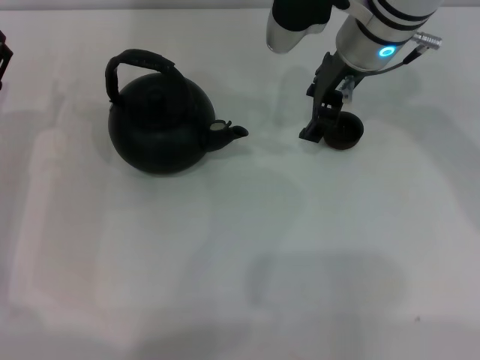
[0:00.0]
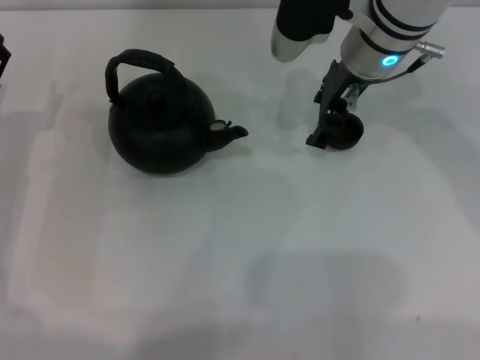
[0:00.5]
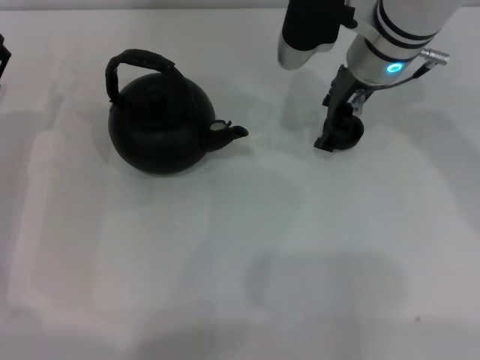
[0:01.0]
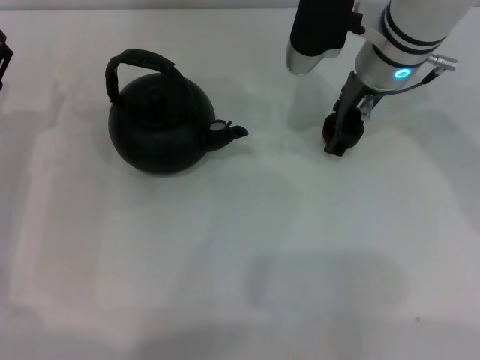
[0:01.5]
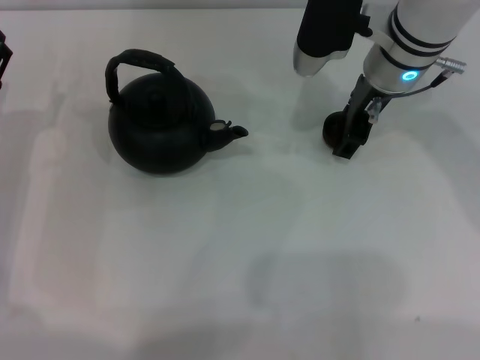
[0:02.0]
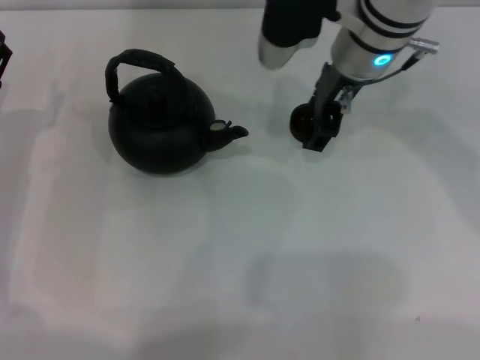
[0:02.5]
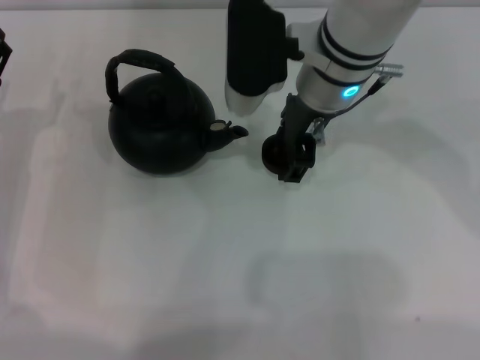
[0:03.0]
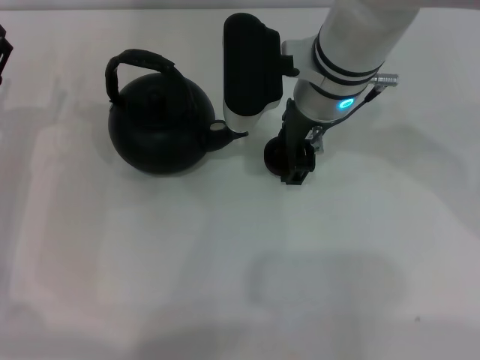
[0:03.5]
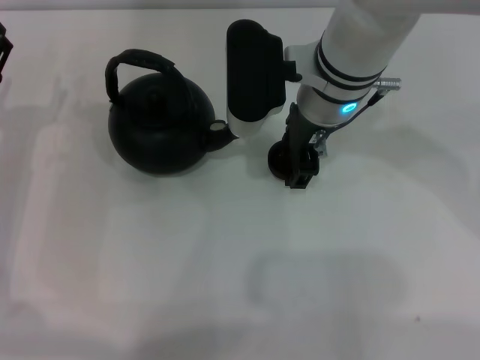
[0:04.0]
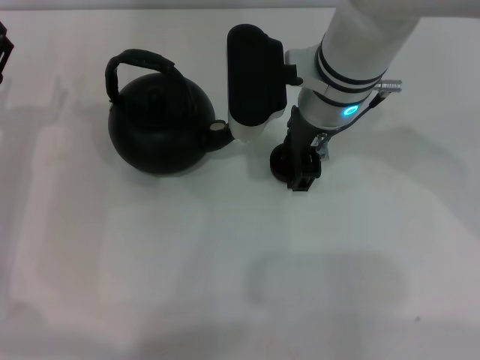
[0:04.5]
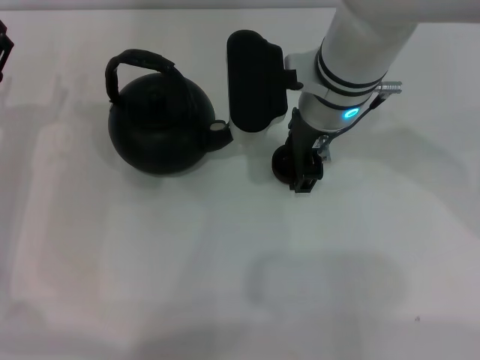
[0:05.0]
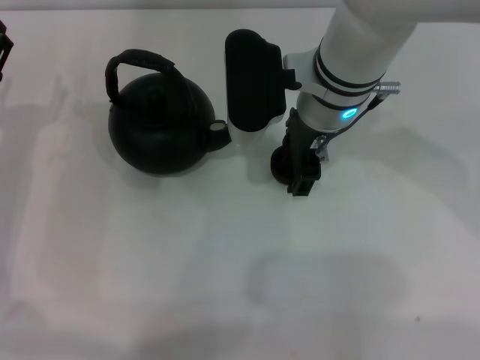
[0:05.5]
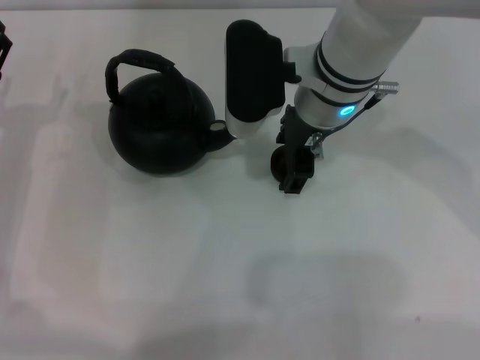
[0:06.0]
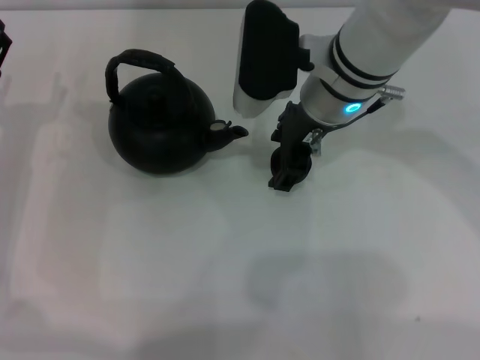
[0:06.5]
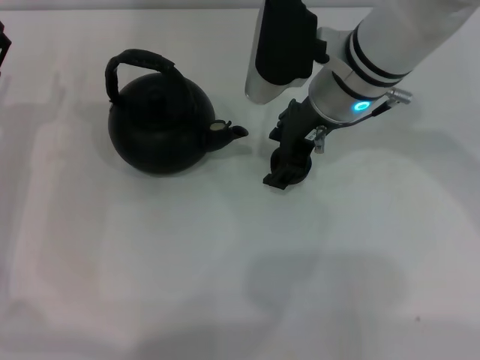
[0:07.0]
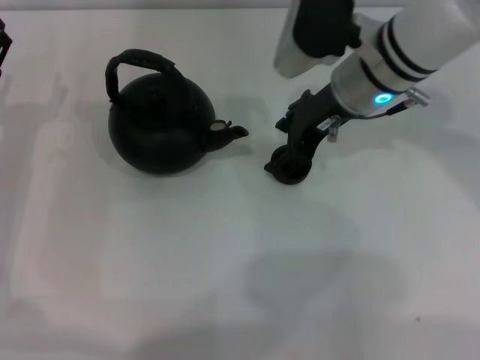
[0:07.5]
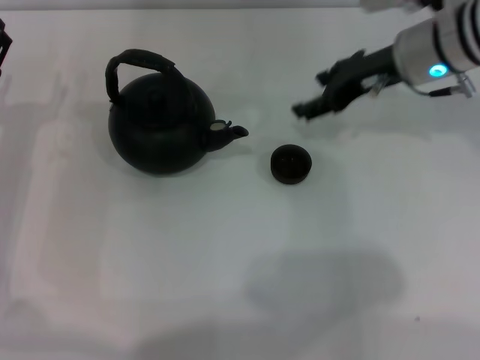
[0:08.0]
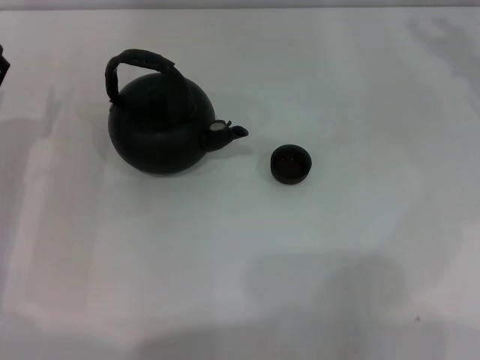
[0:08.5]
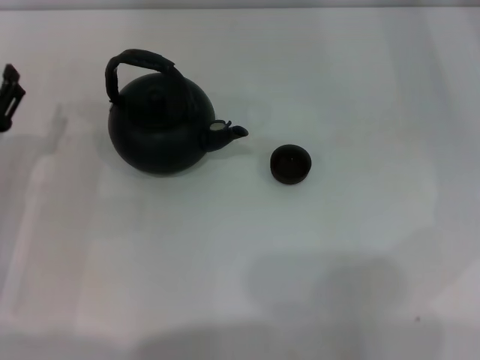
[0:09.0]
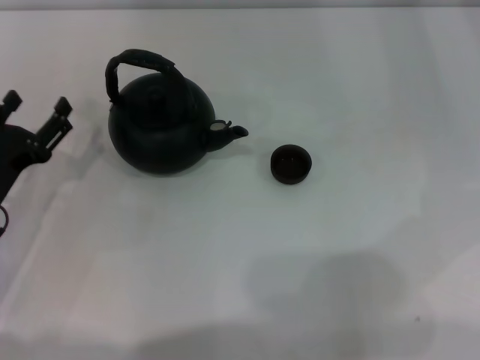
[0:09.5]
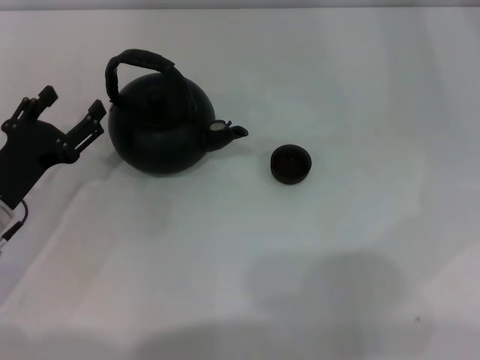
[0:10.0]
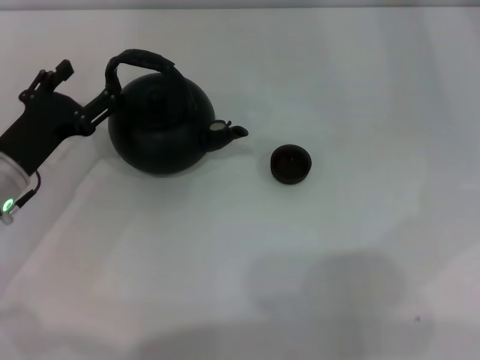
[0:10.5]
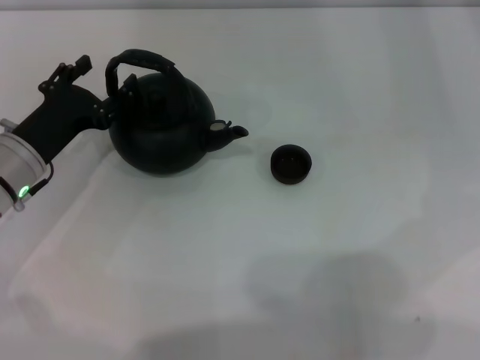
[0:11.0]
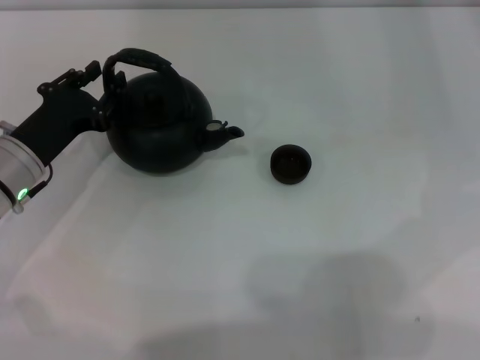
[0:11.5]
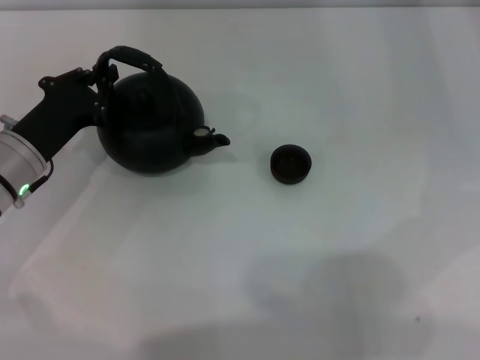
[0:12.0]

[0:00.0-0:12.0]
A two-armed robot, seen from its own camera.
Task of the whole recording: Grasp the handle of the teapot with one hand and pour tea into the teacup.
Step, 0:00.0 to 0:02.5: Pick up the teacup with the right gripper.
Step, 0:03.0 to 0:07.5: Place the teacup in the center of view with the right gripper.
0:00.0 to 0:02.0: There are only small adjustments of the grippers.
0:02.0 to 0:04.0: The right gripper shifts some 5 cm to the left.
0:04.0 to 0:06.0: The two grippers keep their place.
0:06.0 to 0:08.0: The right gripper is displaced to the right by some 15 cm.
0:08.0 to 0:10.0: The left gripper ends up approximately 5 cm from where it was; the right gripper shifts about 15 cm to the right.
0:10.0 to 0:12.0: The left gripper goes about 5 cm forward, and closes.

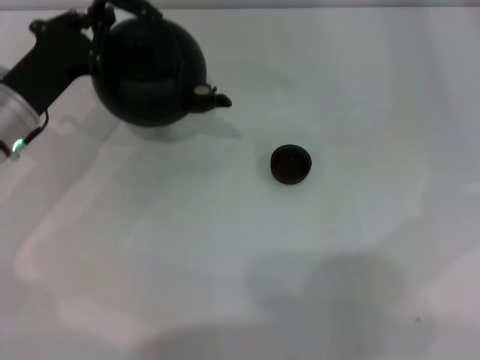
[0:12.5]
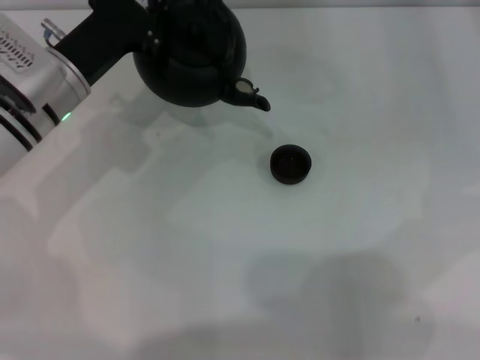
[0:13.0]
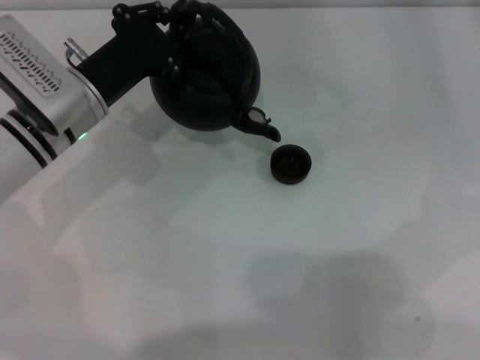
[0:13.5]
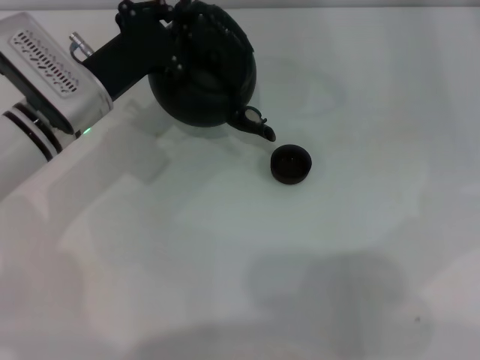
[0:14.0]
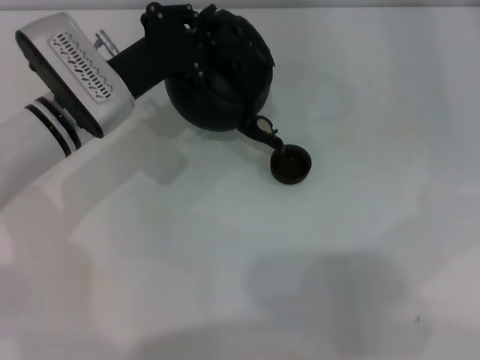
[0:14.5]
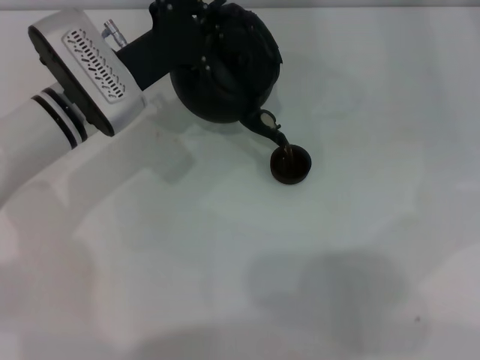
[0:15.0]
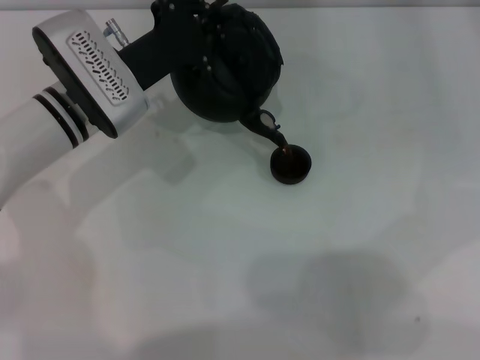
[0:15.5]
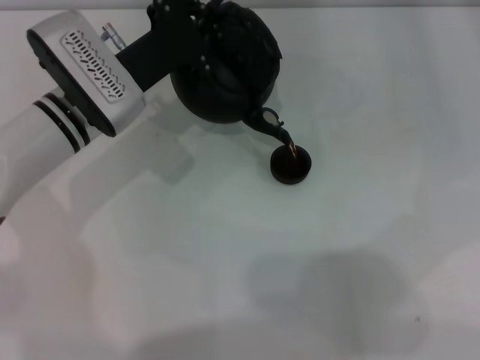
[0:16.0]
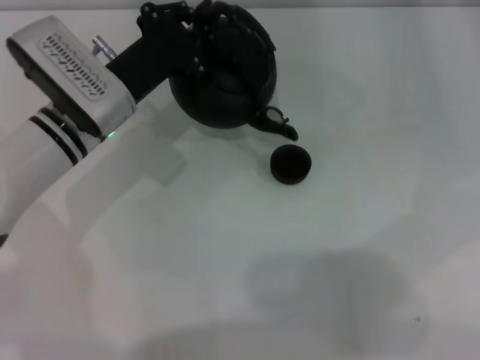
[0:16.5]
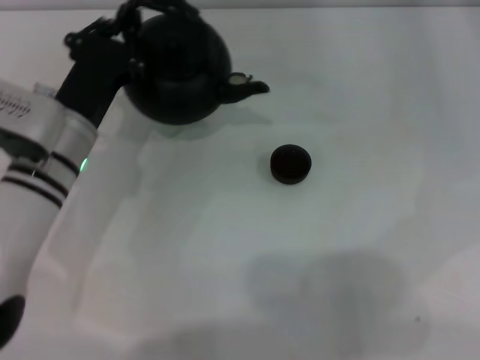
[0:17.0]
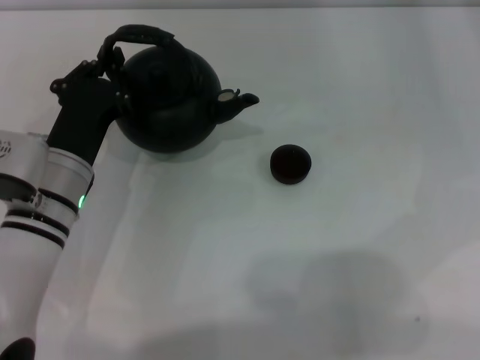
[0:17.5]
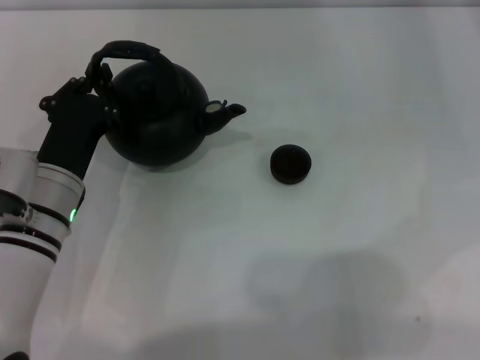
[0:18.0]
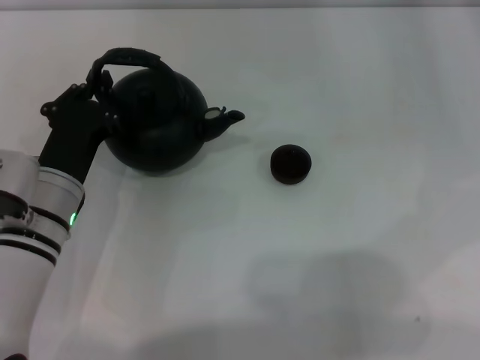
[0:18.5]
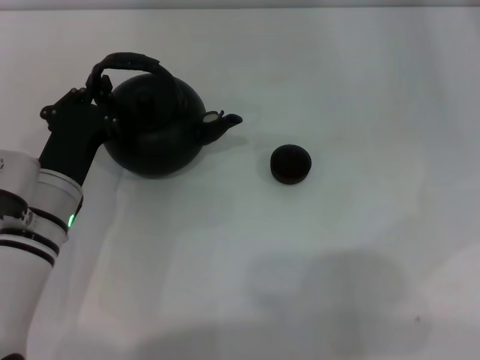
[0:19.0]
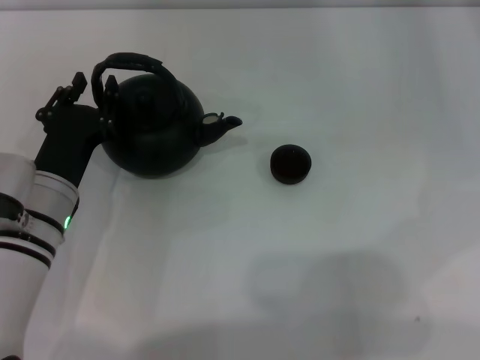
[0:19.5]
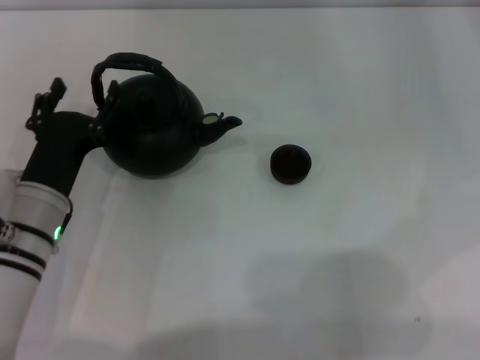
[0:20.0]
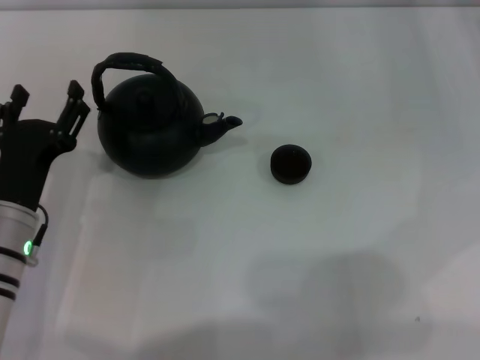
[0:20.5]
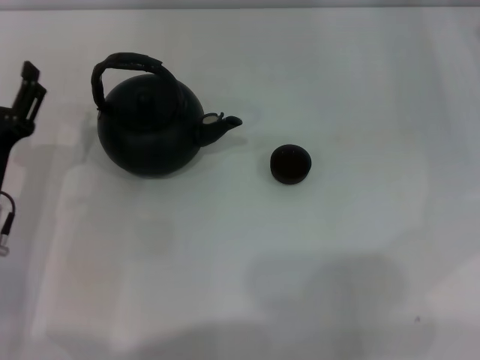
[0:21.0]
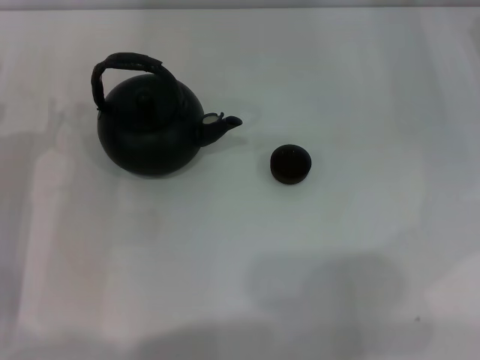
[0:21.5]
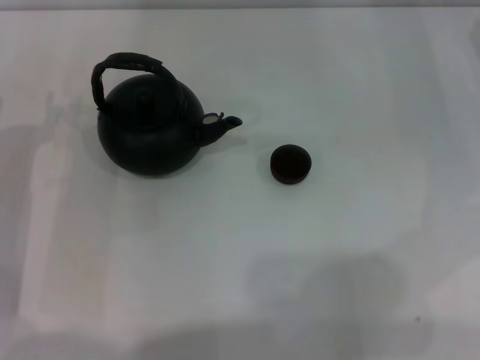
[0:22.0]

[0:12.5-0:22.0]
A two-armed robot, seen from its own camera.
Task of the whole recording: Grasp the handle of the teapot with one hand and pour tea into the teacup.
Step, 0:13.0 to 0:16.5: Pour tea into the teacup with the left gripper.
Step, 0:17.0 to 0:20.0: Put down the teapot with the left gripper.
0:12.5 to 0:14.5: The left gripper goes some 10 cm to the right.
0:14.5 to 0:16.5: The grippers make only small movements.
0:16.5 to 0:18.0: The left gripper travels backward by about 10 cm.
0:18.0 to 0:20.0: The left gripper opens its fingers.
0:20.0 to 0:22.0: The left gripper goes some 5 cm to the left.
